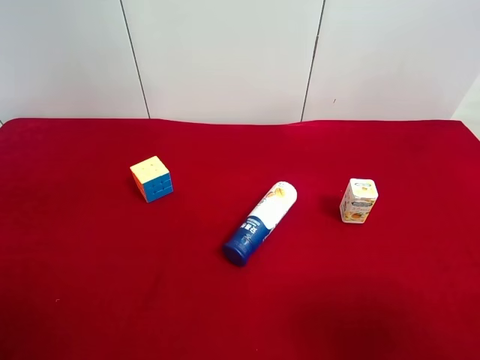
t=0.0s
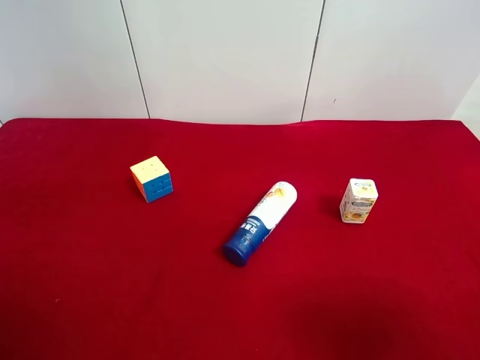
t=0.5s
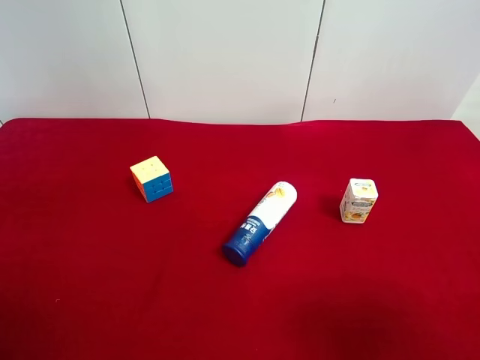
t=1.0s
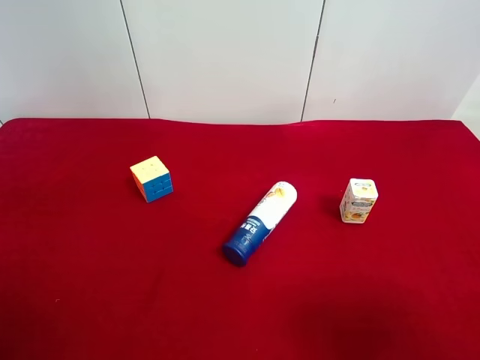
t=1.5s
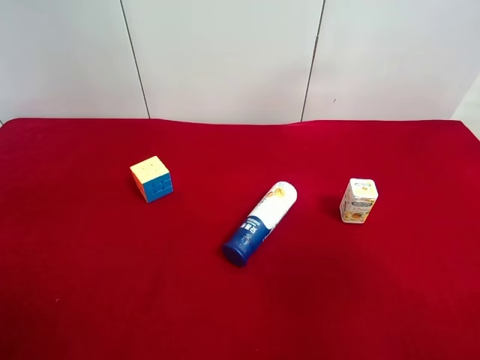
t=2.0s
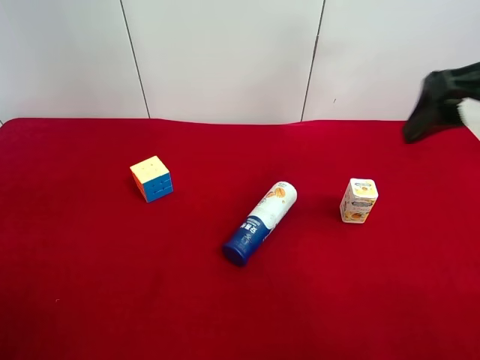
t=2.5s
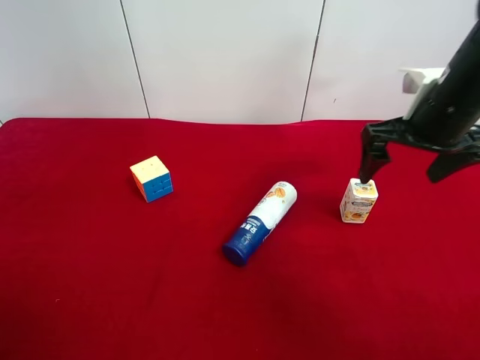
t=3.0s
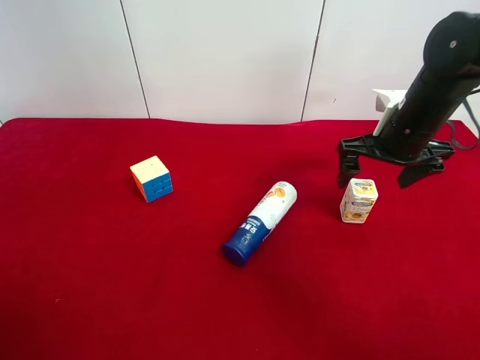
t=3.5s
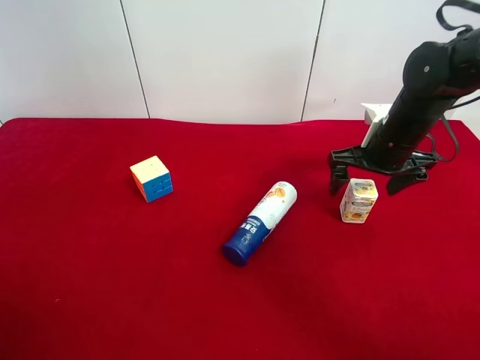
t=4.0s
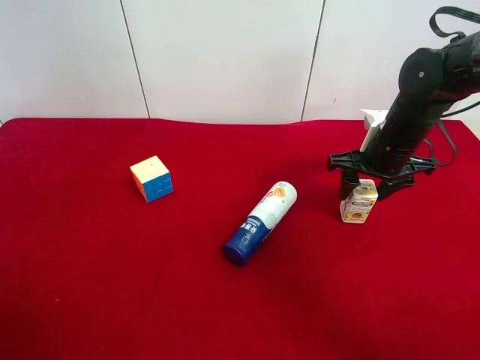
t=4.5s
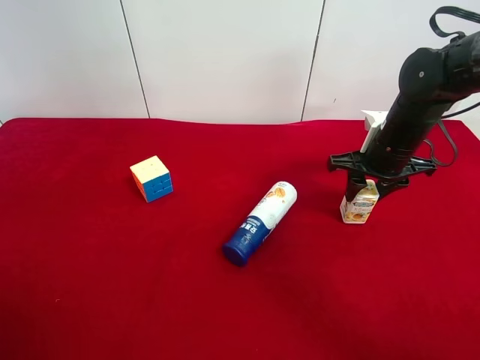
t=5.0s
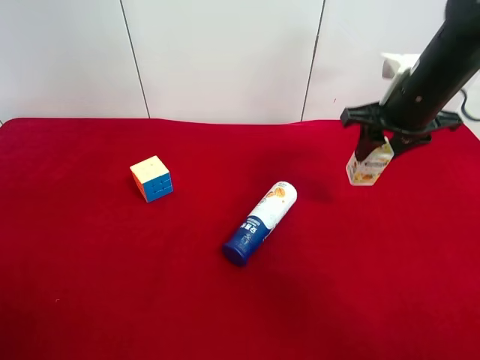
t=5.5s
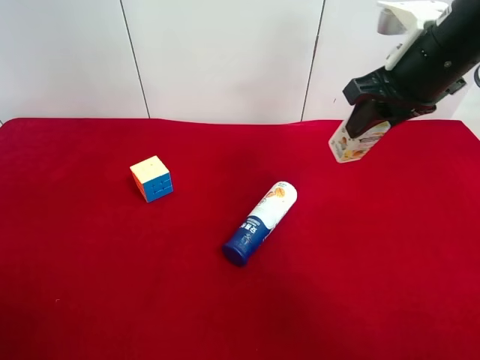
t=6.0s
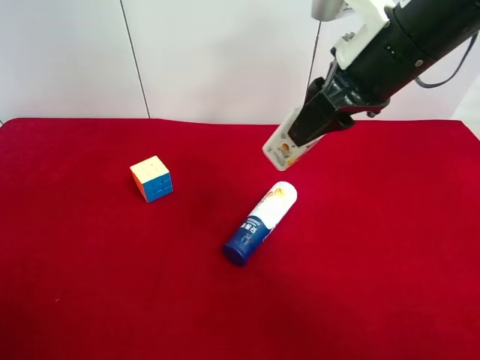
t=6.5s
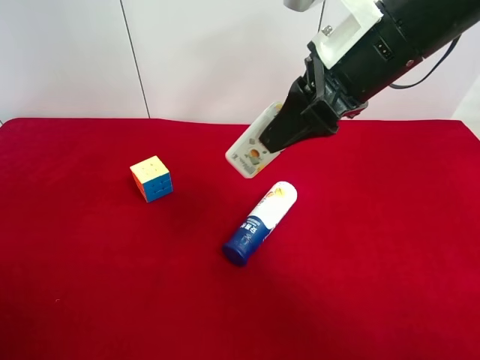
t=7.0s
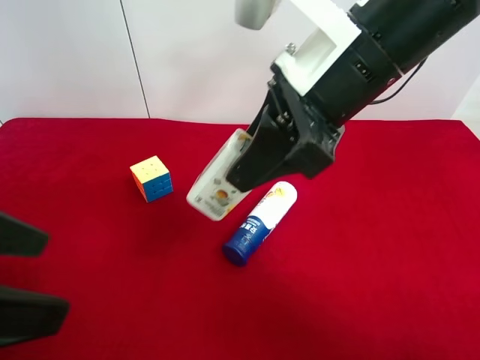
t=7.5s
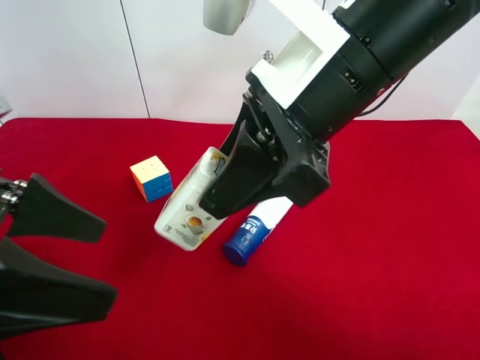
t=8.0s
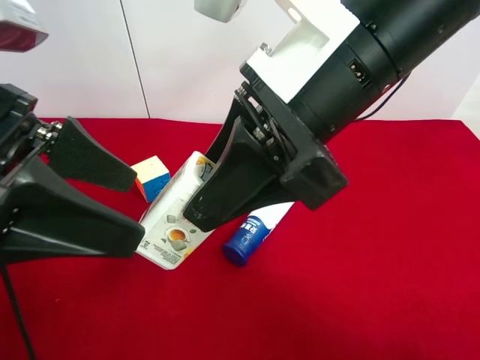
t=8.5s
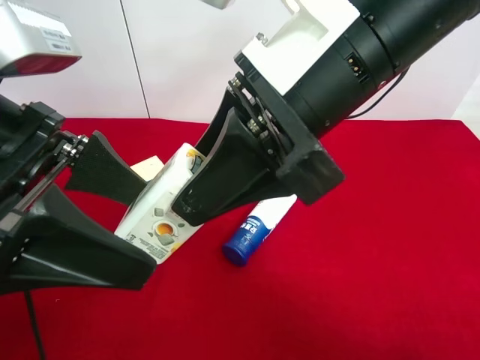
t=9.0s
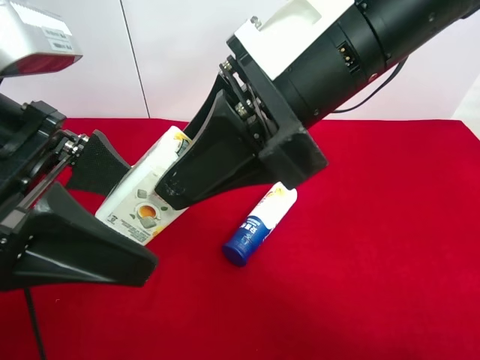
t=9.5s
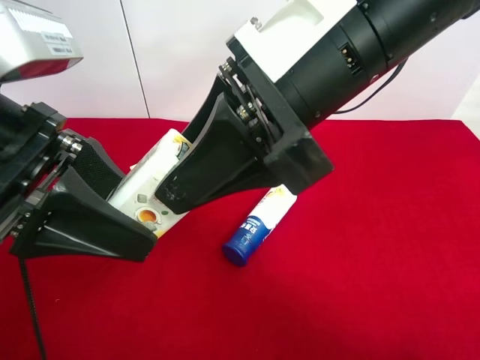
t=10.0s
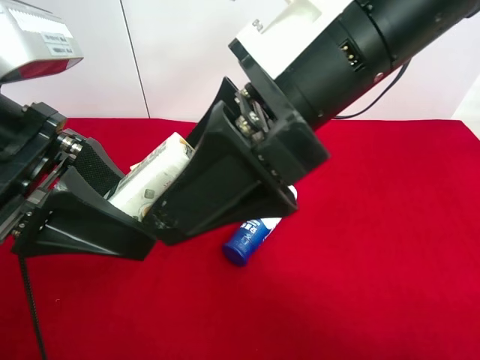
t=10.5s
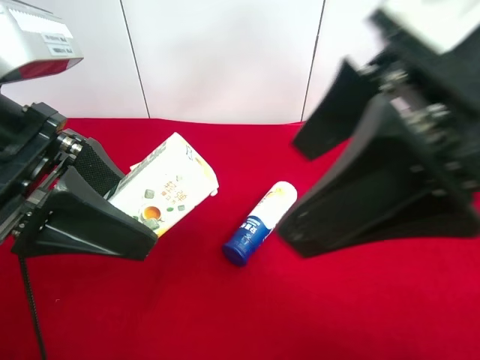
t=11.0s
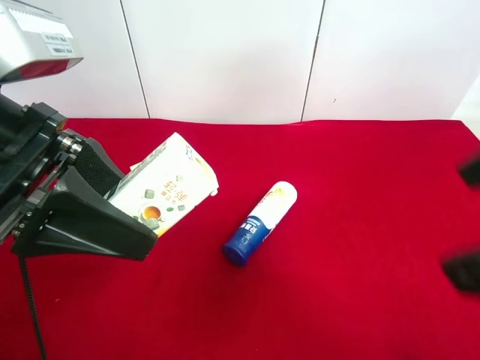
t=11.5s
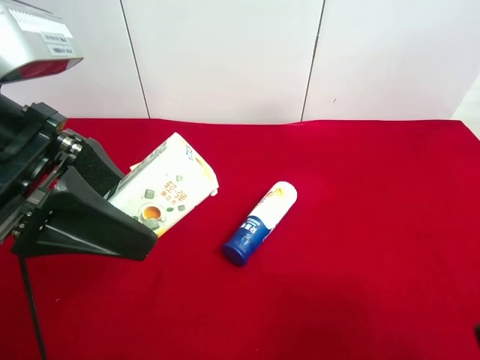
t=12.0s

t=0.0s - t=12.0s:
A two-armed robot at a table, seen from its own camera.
Task of the whole recording: use the right gripper to pick up the item and transfer it from the right gripper to the left gripper.
Step, t=0.0s - t=4.5s: Use the right gripper to grab the square chewing gum on the right side of the table.
Step, t=5.0s - t=10.0s: Pass the square chewing gum to the left gripper.
t=2.0s - t=4.0s: The right gripper goes approximately 30 cm forward and downward.
t=4.0s - t=6.0s: The right gripper shifts approximately 15 cm upward, and closes its fingers.
t=6.0s - t=8.0s: The left gripper shifts about 15 cm forward and to the right, while the right gripper is displaced to the left and backward by some 15 cm.
t=8.0s - t=10.0s: The left gripper shifts by about 5 cm, and closes.
t=10.0s - t=12.0s: The right gripper is displaced to the right and backward by some 25 cm, and opens up.

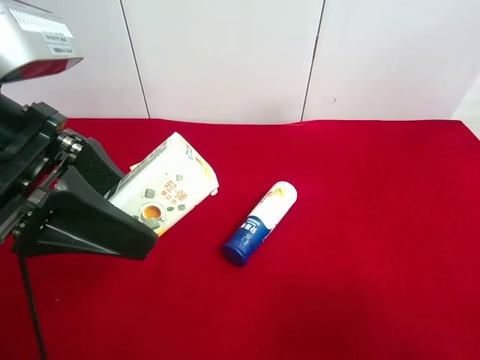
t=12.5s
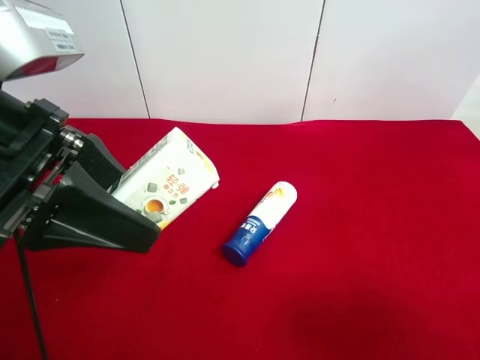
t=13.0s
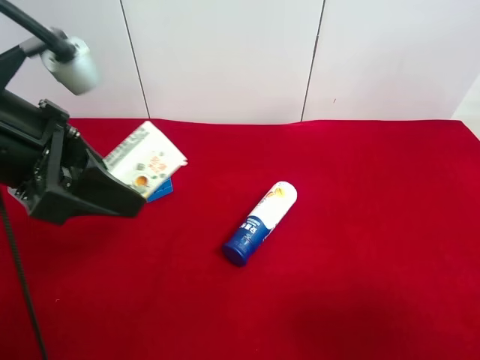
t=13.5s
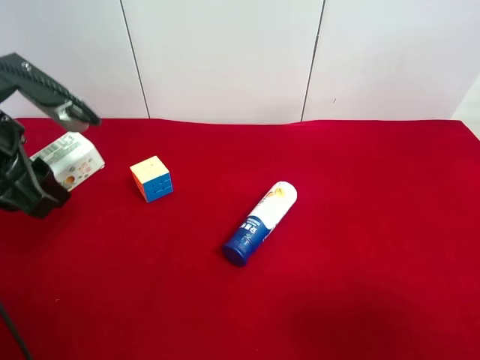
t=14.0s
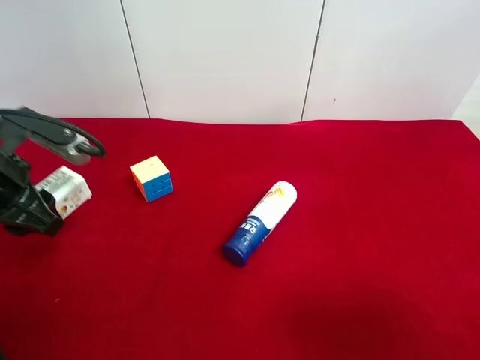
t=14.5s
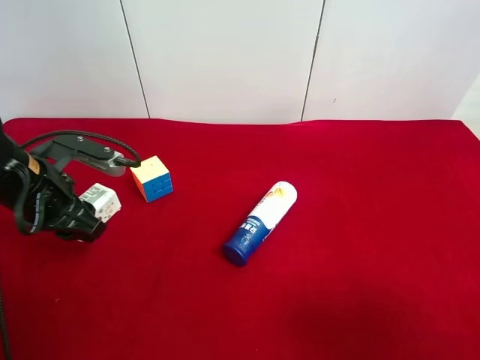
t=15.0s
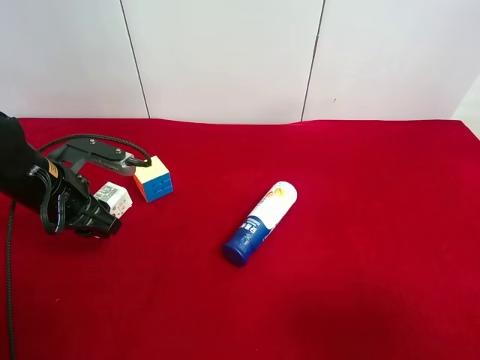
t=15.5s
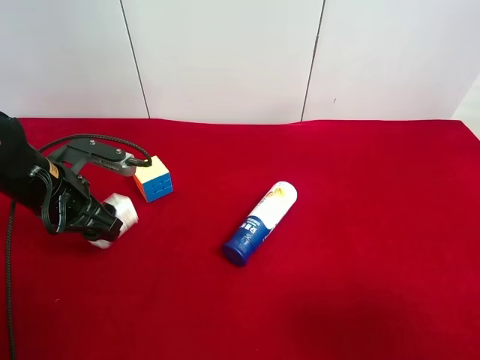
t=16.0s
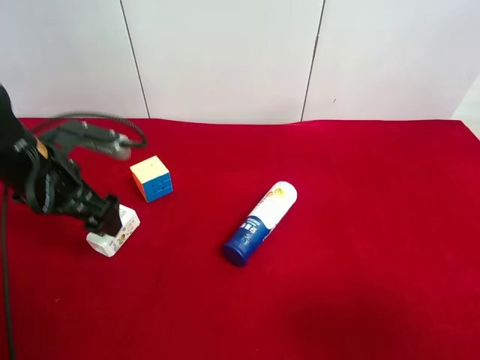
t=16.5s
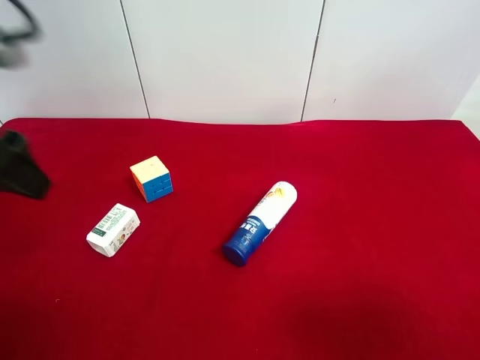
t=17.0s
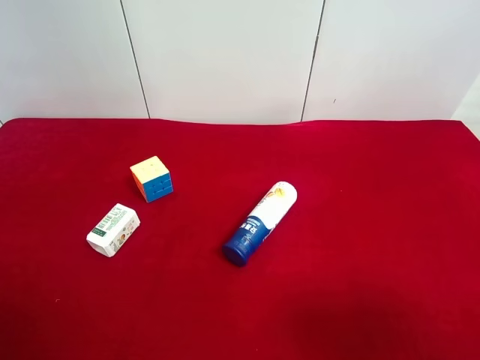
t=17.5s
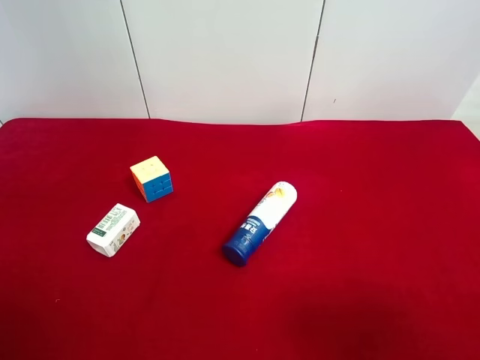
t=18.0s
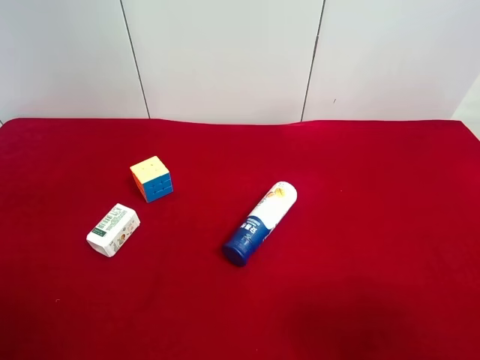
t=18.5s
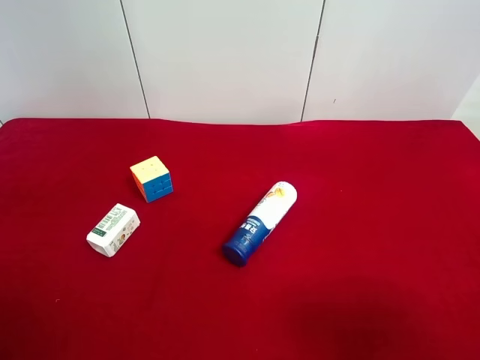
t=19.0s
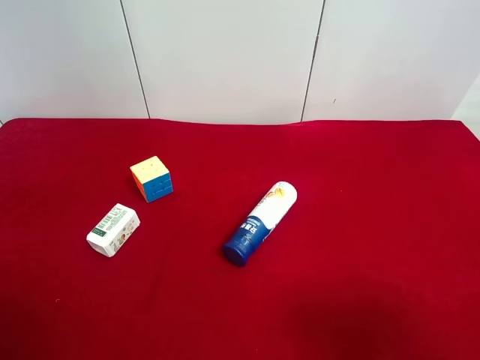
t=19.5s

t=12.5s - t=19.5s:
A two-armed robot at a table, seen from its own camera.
Task of the whole recording: use the right gripper to pick up the item and transfer it from the right gripper to the left gripper.
Step, t=12.5s - t=16.0s: The left gripper places square chewing gum on the left side of the table.
t=12.5s - t=14.5s: The left gripper heads downward, to the left and forward, covering approximately 15 cm.
t=14.5s - t=16.0s: The left gripper heads downward, covering roughly 5 cm, and opens up.
t=16.0s - t=17.5s: The left gripper moves backward and upward, approximately 30 cm, and opens up.

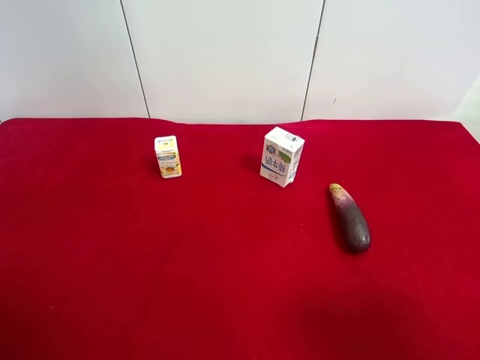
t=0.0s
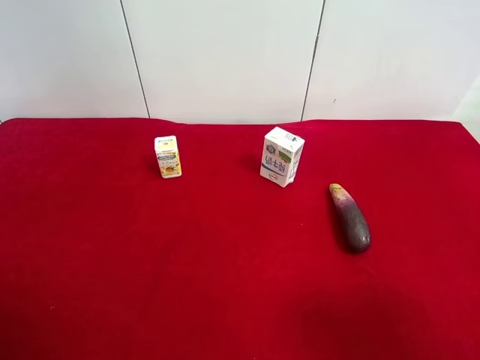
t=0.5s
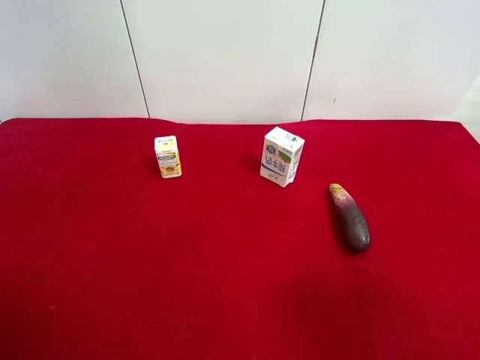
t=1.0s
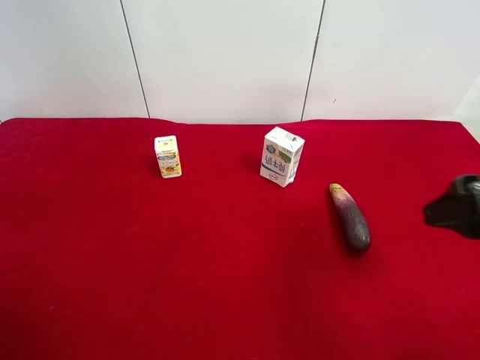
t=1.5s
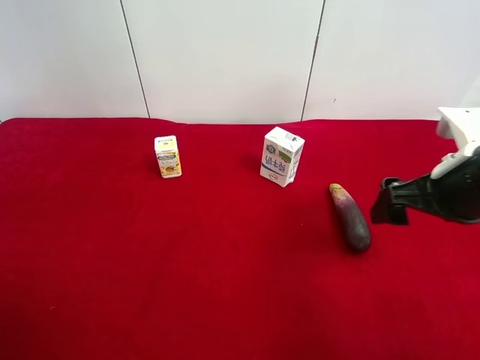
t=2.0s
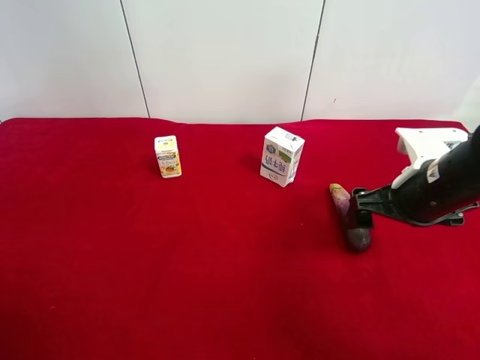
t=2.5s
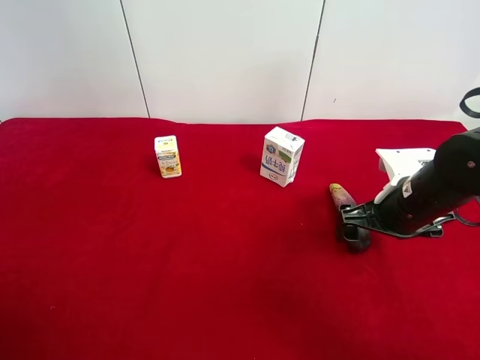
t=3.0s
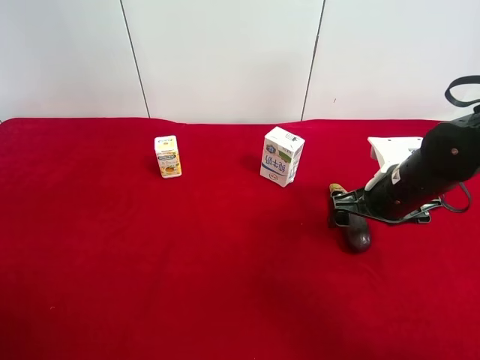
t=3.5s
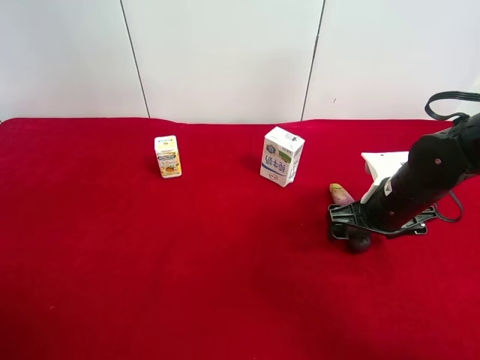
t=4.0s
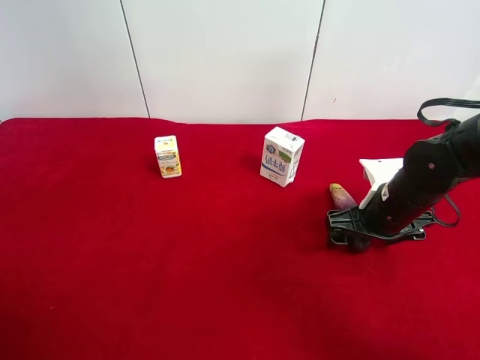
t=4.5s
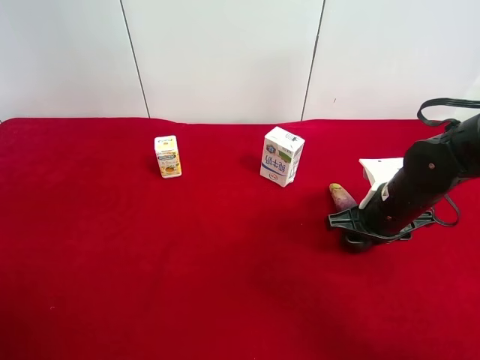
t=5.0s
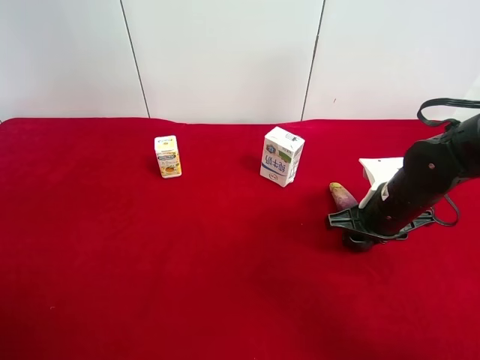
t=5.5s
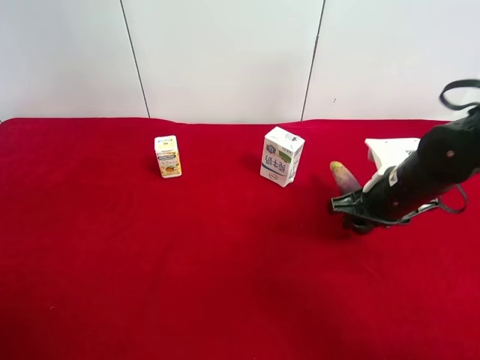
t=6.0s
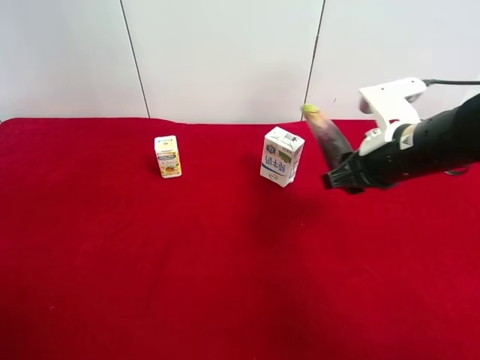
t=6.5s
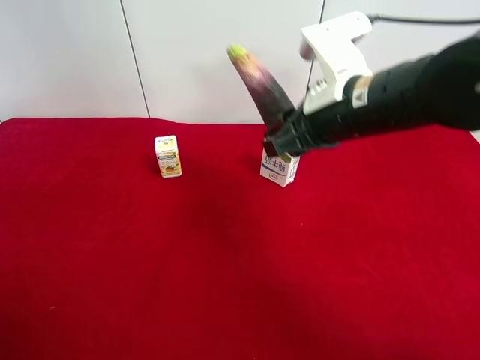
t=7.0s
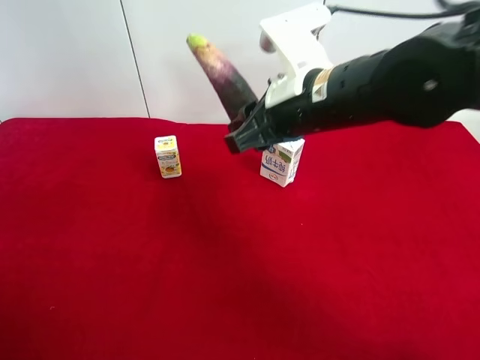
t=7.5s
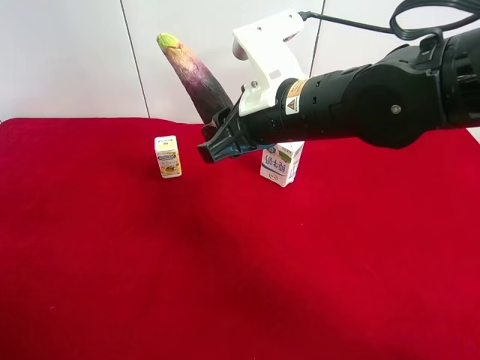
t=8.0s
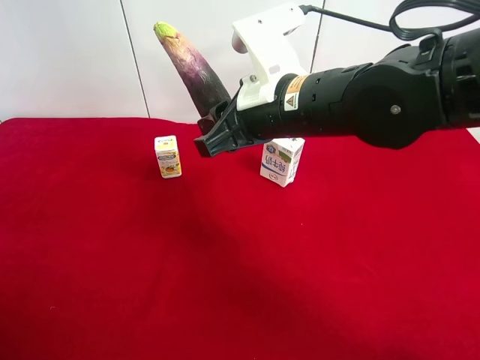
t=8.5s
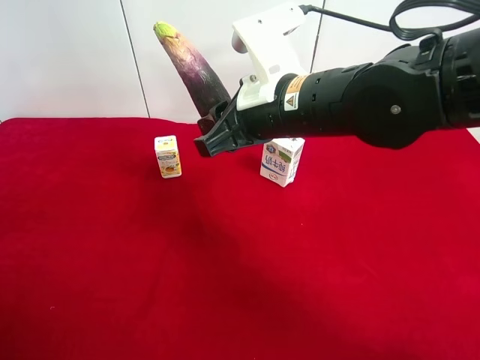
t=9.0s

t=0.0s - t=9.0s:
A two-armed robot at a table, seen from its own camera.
Task of the whole recording: use the right gripper to pick up the item and transfer it from the right gripper to the left gripper.
Step, t=0.0s - t=5.0s: Use the right gripper to grab the eggplant on the right side of the table.
t=0.0s - t=2.0s: The right gripper is displaced forward by approximately 20 cm.
t=2.0s - t=4.5s: The right gripper is displaced downward and forward by approximately 10 cm.
t=4.5s - t=7.0s: The right gripper goes roughly 20 cm upward and to the left, and closes.
t=7.0s - t=9.0s: The left gripper goes roughly 10 cm forward, while the right gripper shifts approximately 5 cm to the left.
